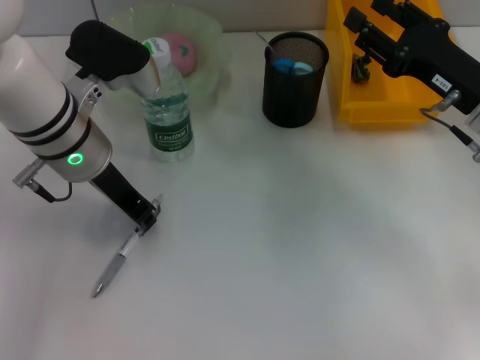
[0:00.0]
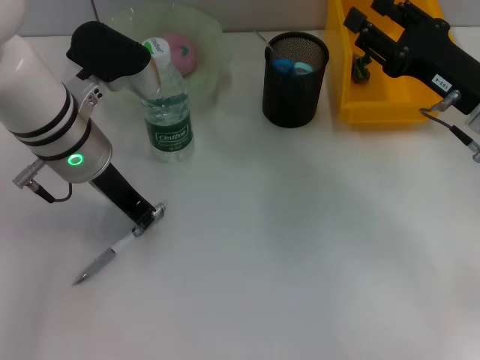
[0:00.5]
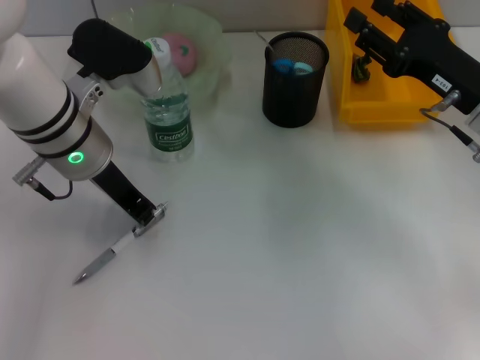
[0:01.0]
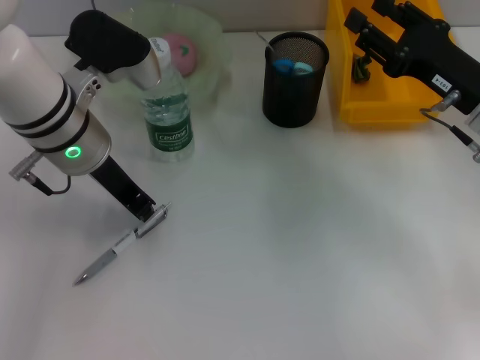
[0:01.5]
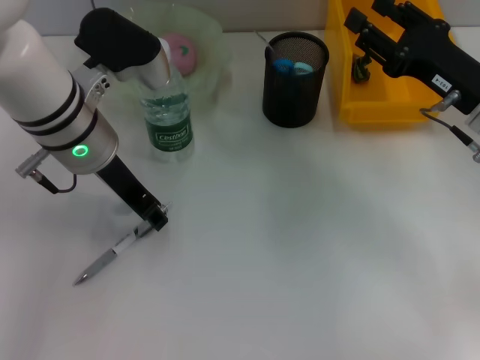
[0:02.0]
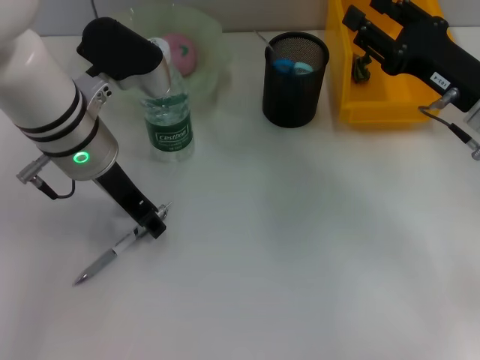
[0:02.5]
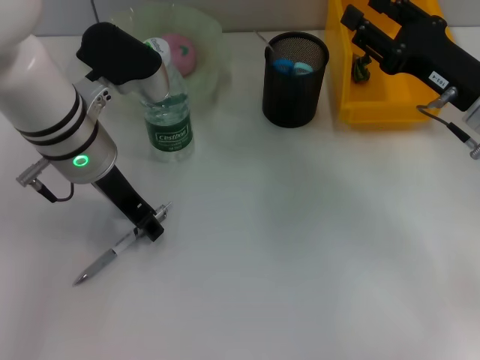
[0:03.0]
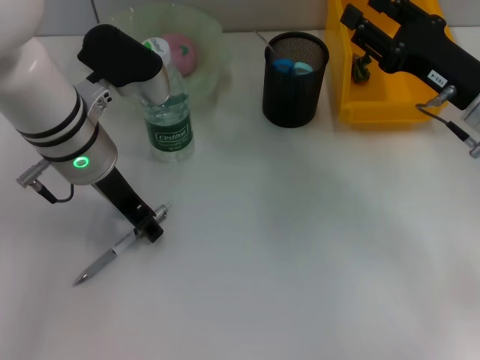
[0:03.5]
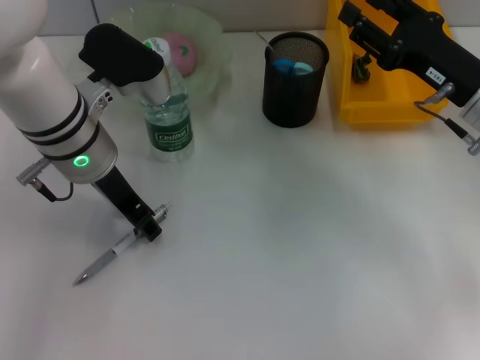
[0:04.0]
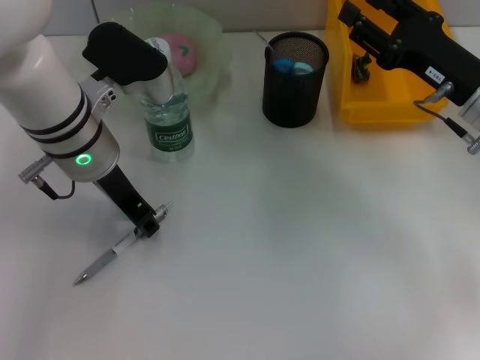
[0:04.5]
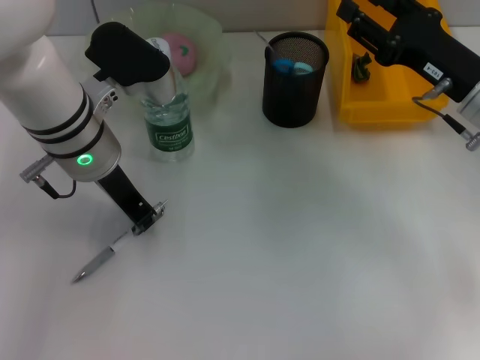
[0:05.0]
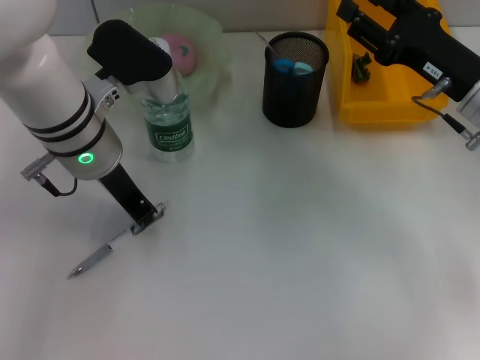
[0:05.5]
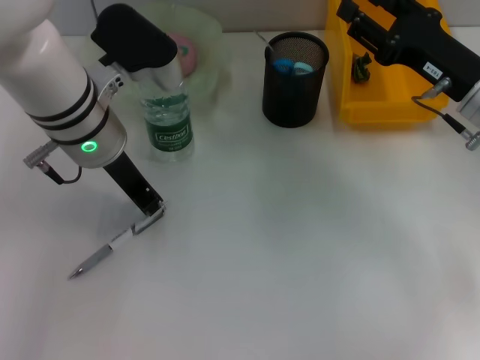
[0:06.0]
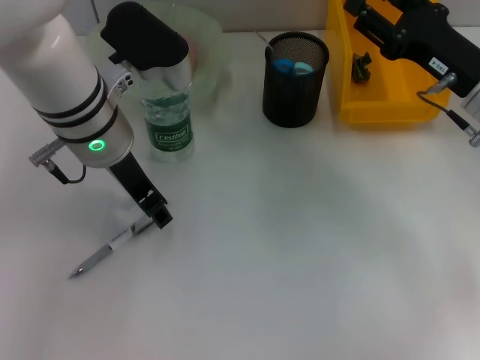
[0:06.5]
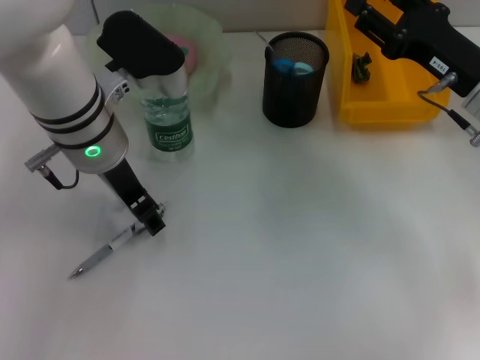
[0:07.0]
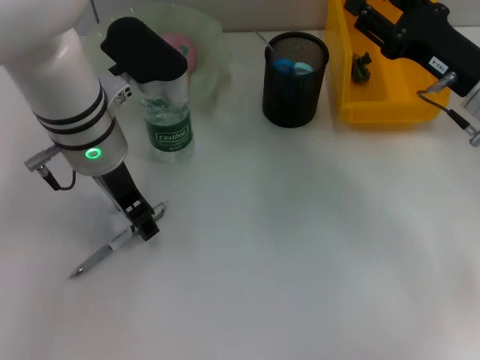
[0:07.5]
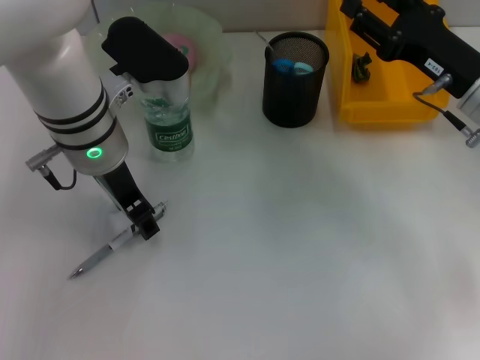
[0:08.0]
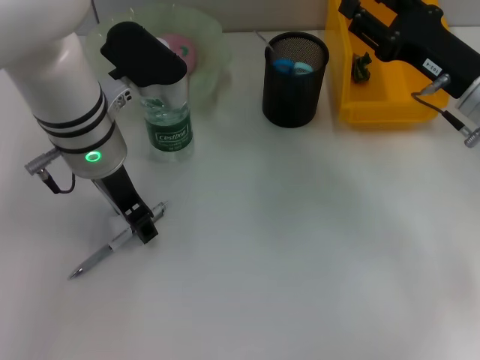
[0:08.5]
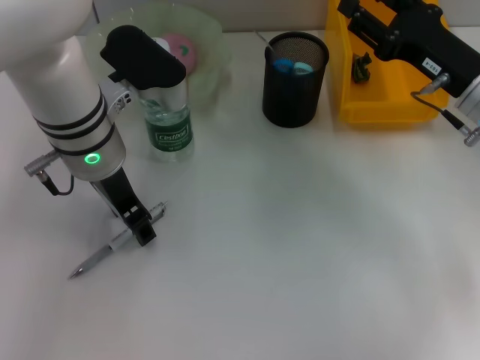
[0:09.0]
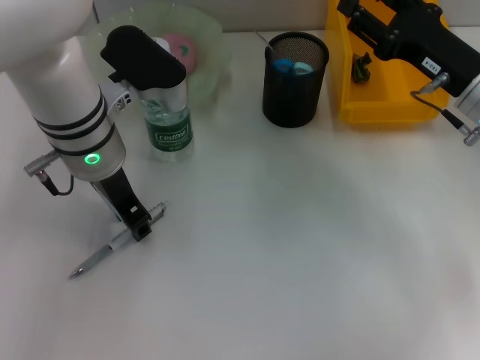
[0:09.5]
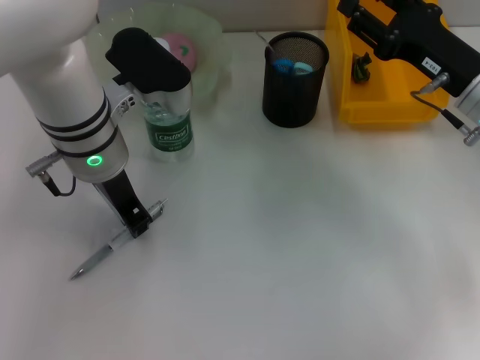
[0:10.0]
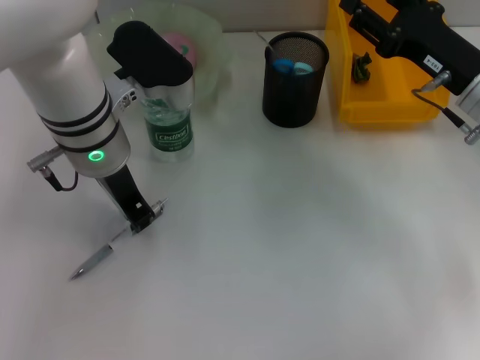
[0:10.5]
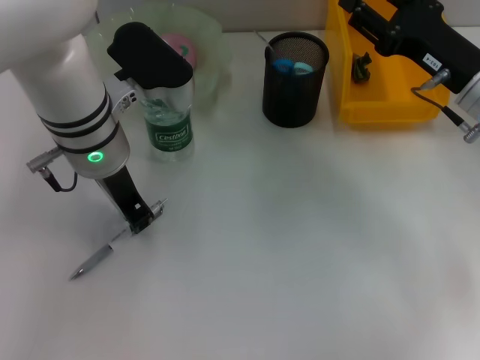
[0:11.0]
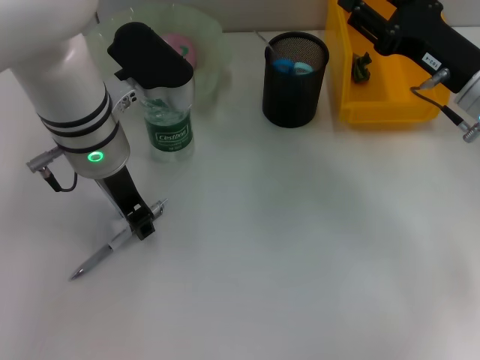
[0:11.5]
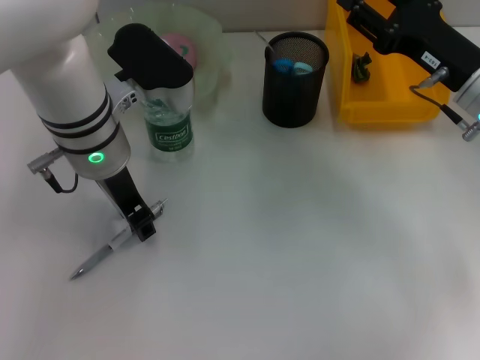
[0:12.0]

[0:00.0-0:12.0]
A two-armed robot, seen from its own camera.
0:00.0 to 0:02.0: The grippers move only a little.
0:02.0 to 0:04.0: Both grippers stay put.
0:04.0 to 0:06.0: The left gripper closes up.
0:06.0 to 0:08.0: The left gripper opens.
0:08.0 to 0:10.0: The left gripper closes its fingers.
0:10.0 to 0:12.0: The left gripper opens up.

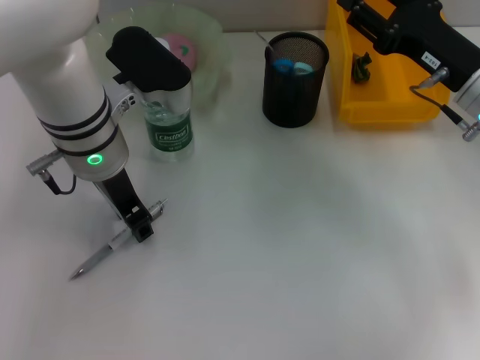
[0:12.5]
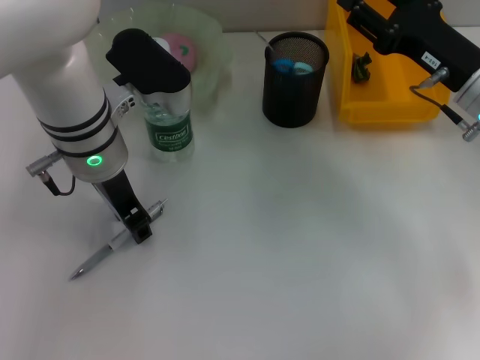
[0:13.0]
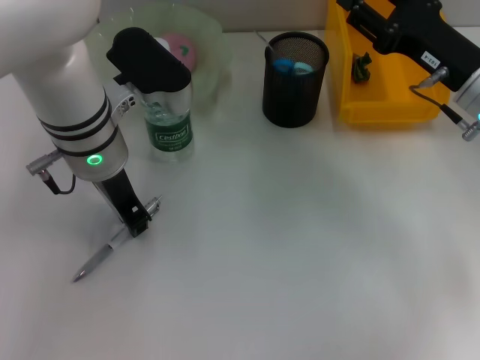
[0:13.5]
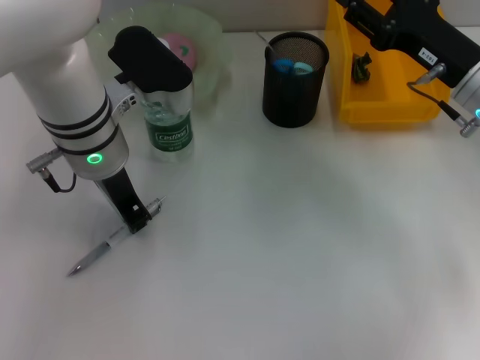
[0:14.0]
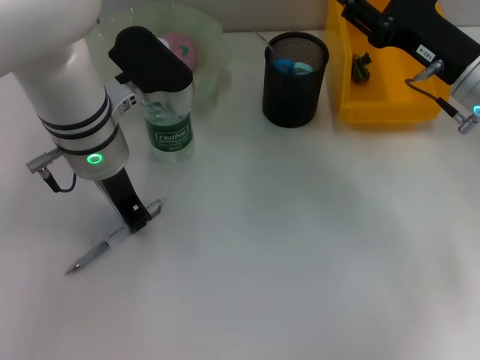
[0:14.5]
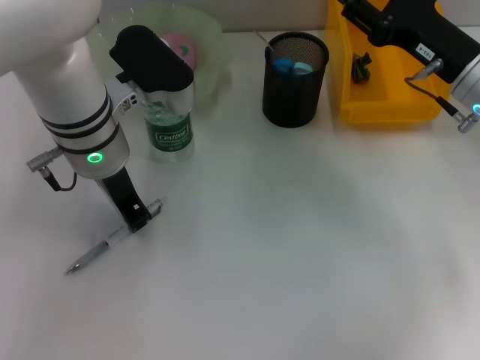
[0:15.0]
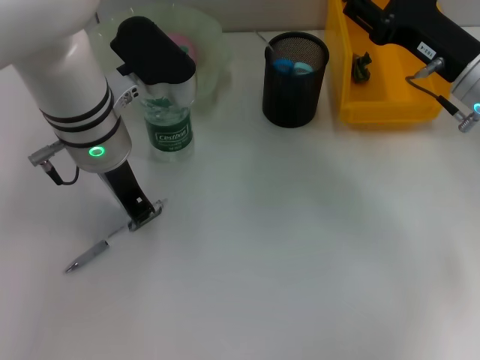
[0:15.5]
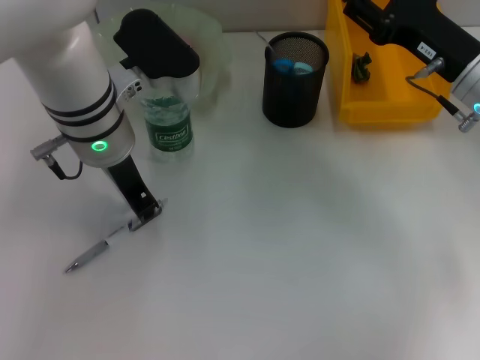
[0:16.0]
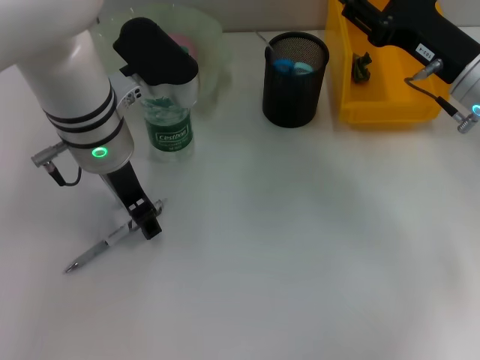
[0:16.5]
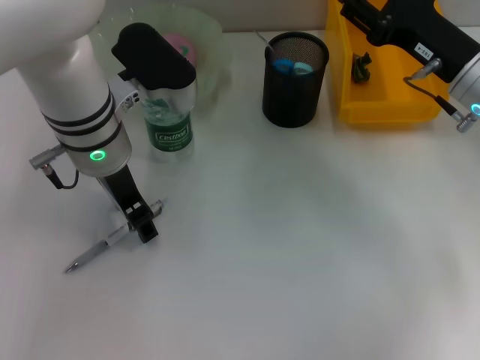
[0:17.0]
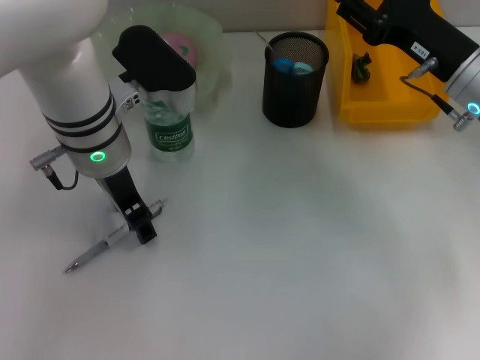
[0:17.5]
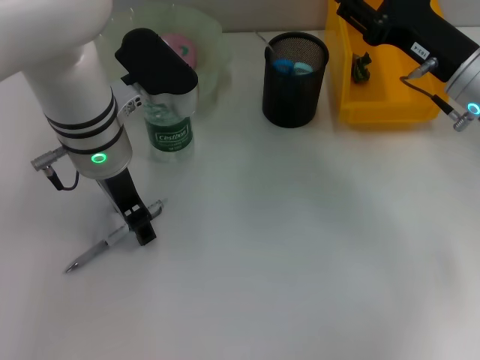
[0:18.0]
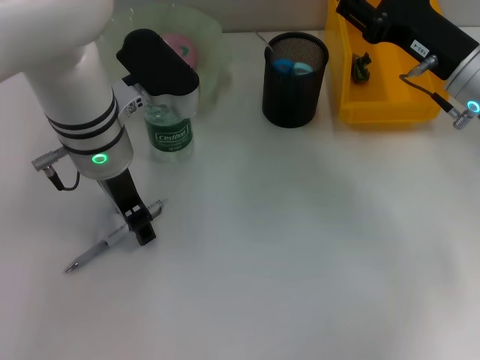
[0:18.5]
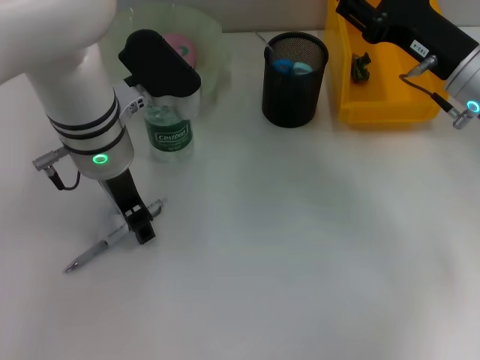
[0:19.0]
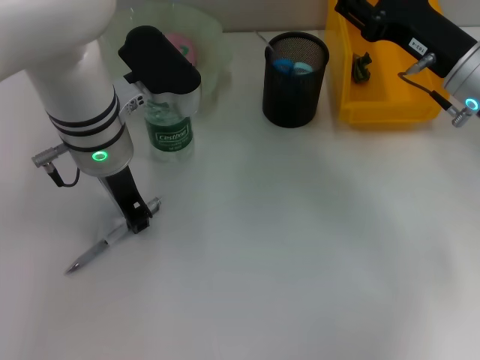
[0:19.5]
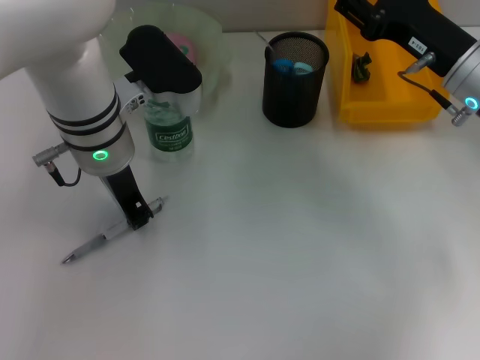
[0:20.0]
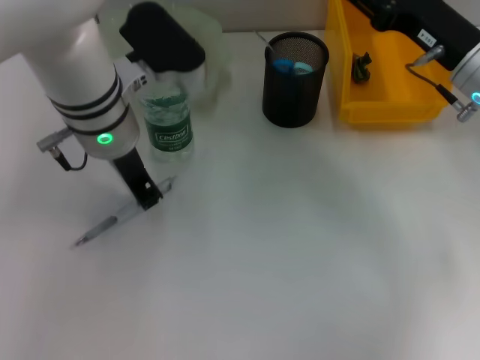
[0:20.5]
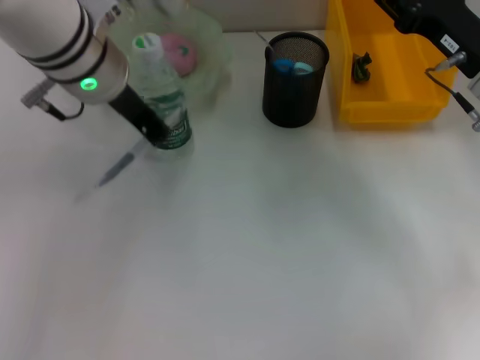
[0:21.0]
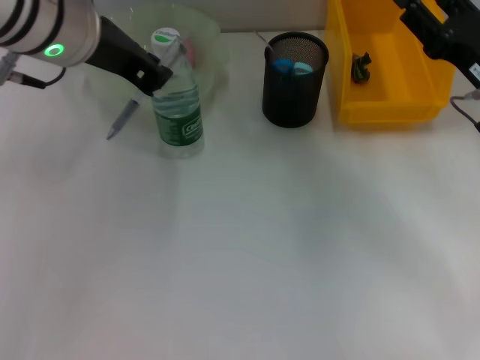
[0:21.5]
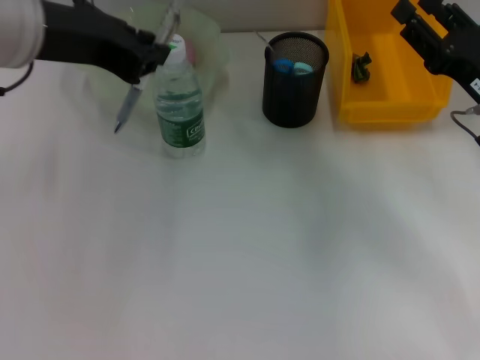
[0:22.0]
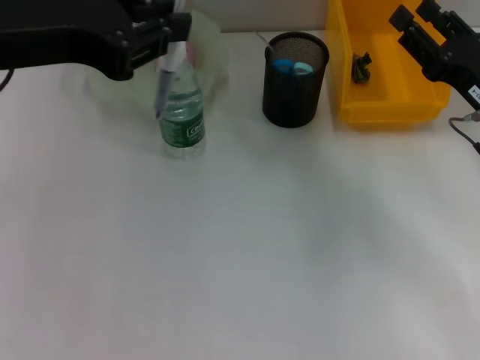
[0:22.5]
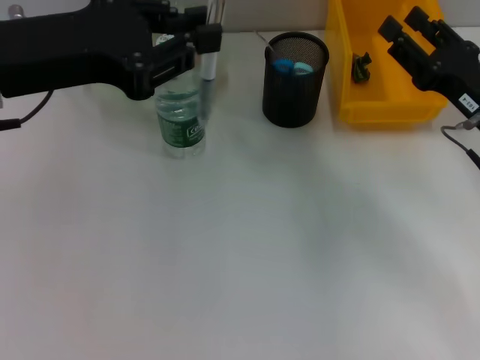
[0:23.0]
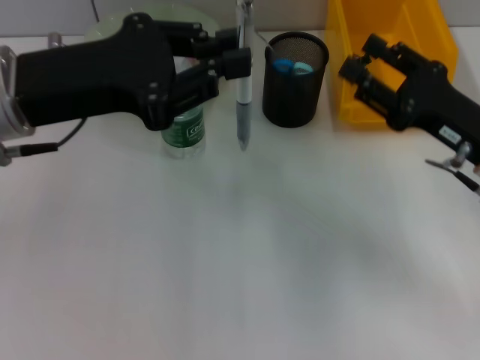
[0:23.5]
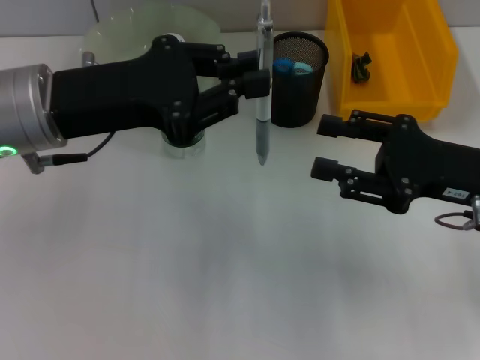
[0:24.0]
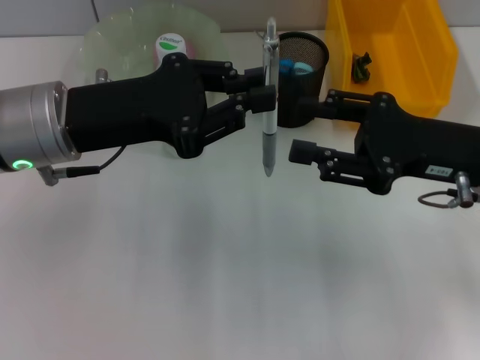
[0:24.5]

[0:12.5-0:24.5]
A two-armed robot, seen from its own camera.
Step, 0:12.5 to 0:20.0: Grab the gray spring-action pen with the left hand.
0:12.5 to 0:14.5: The left gripper closes.
0:14.5 to 0:16.5: The left gripper opens its fingers.
0:16.5 to 0:18.5: Neither gripper changes place.
0:18.5 to 0:20.5: The left gripper closes its fingers.
0:20.5 to 0:22.5: The right gripper heads backward, covering about 5 cm. The left gripper shifts some 20 cm upward, backward and to the left.
0:22.5 to 0:24.5: The left gripper goes some 10 cm downward, while the right gripper shifts by approximately 5 cm.

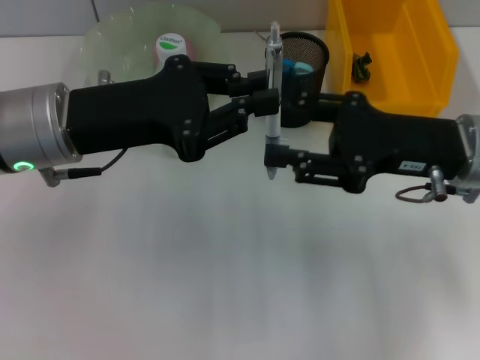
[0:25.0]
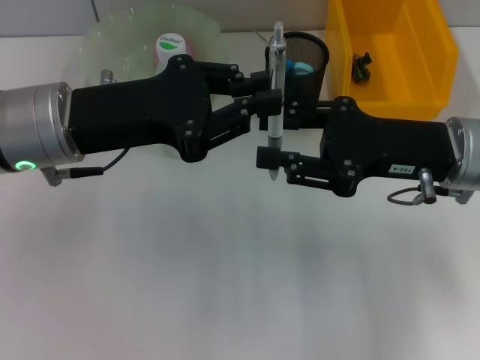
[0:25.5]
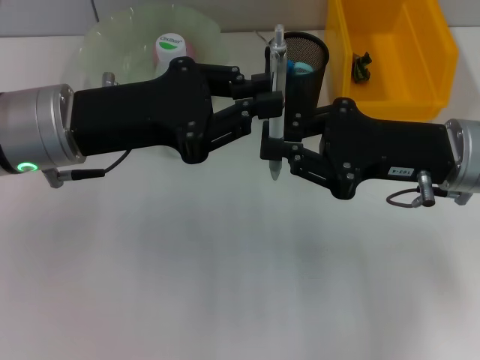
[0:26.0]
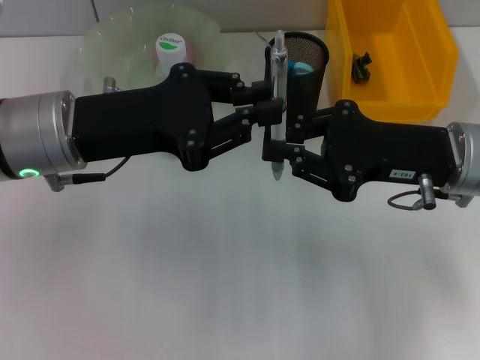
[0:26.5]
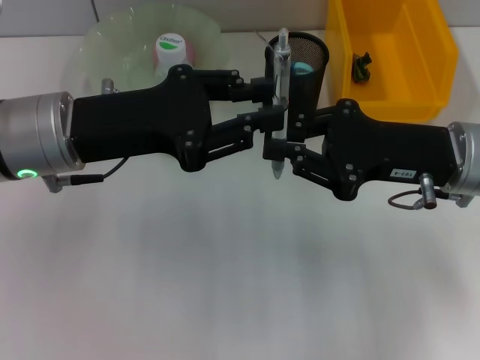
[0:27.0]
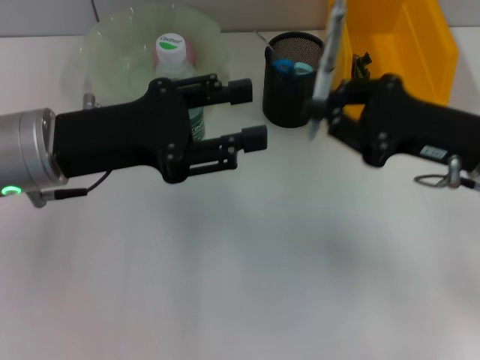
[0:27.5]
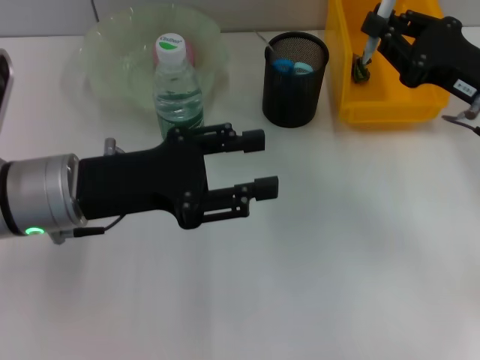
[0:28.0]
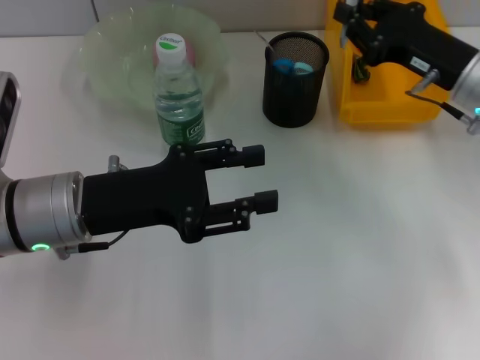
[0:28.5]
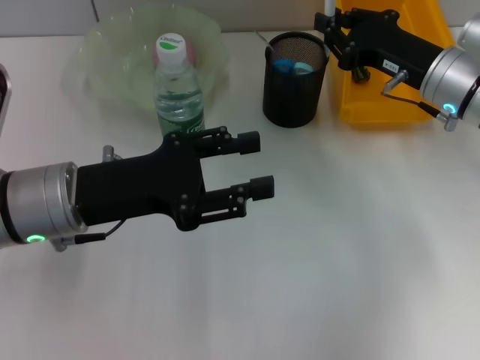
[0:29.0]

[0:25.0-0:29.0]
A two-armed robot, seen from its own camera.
Step, 0:25.0 to 0:27.0: Pass the gray spring-action pen from the left hand to the right hand.
0:25.0 to 0:27.0: The right gripper closes its fingers.
0:27.0 to 0:29.0: The right gripper goes roughly 10 cm forward. Meanwhile the left gripper is displaced downward by about 5 cm, and opens its fingers.
